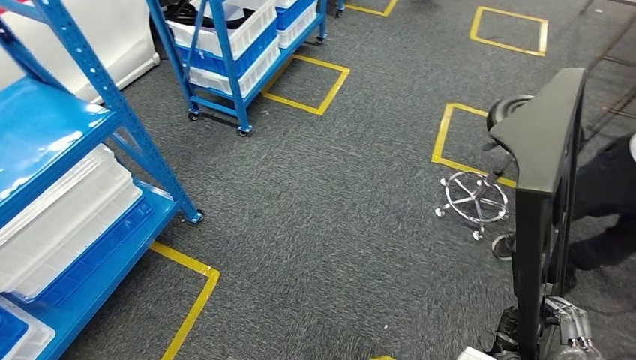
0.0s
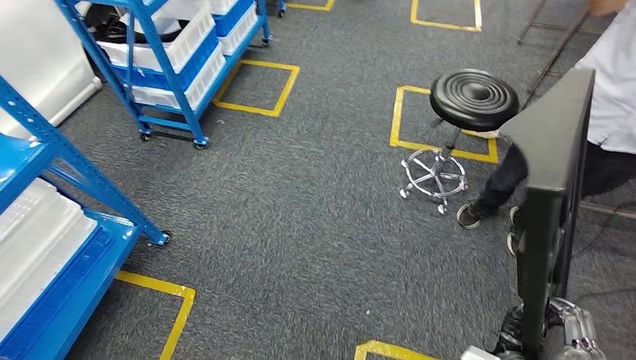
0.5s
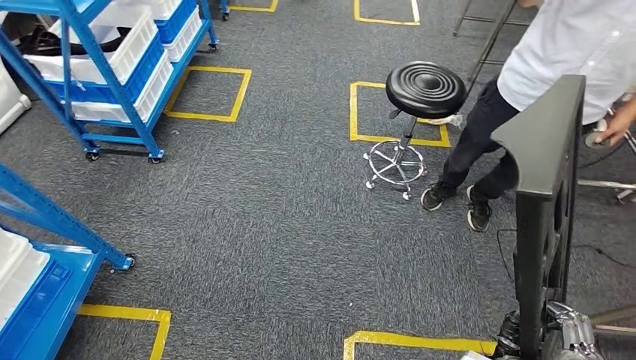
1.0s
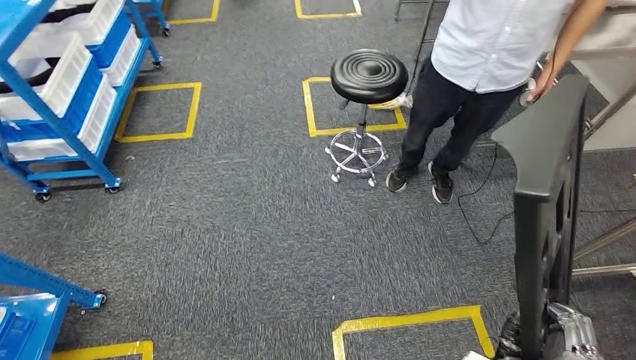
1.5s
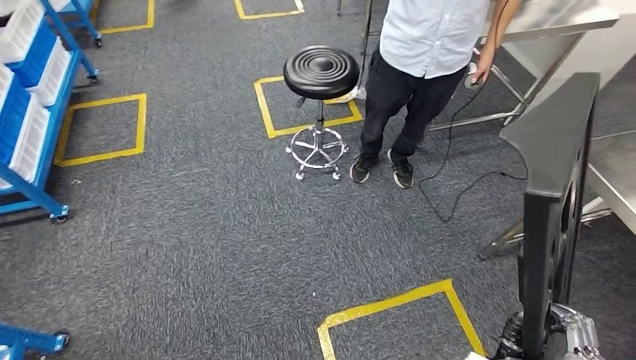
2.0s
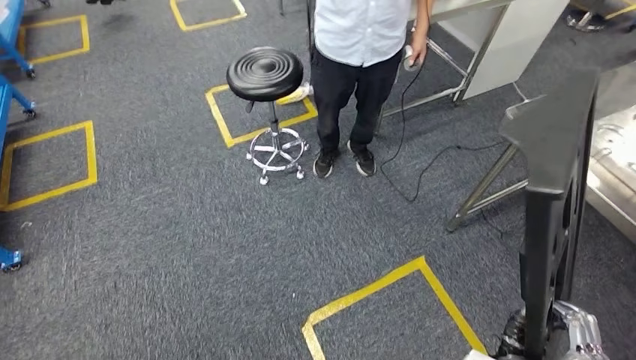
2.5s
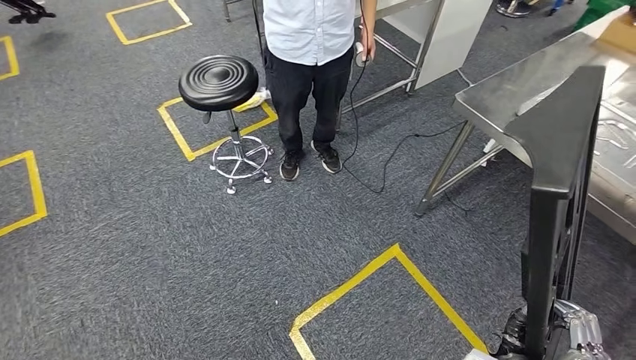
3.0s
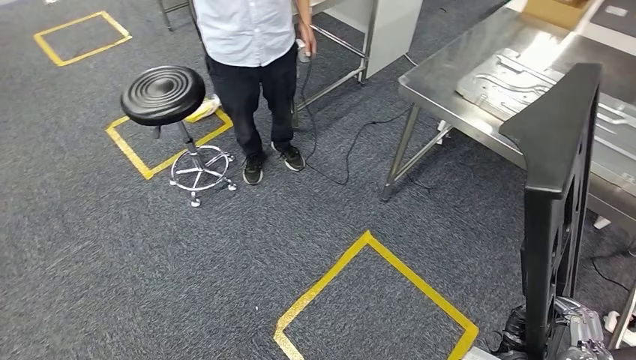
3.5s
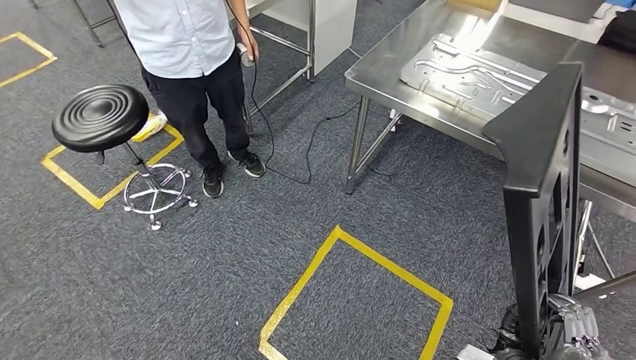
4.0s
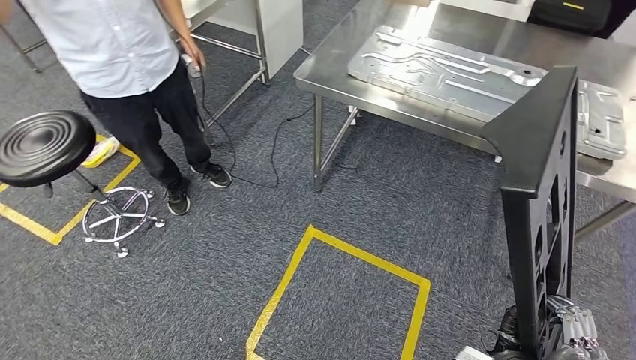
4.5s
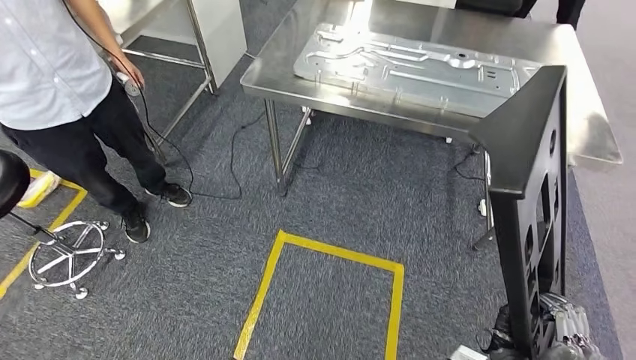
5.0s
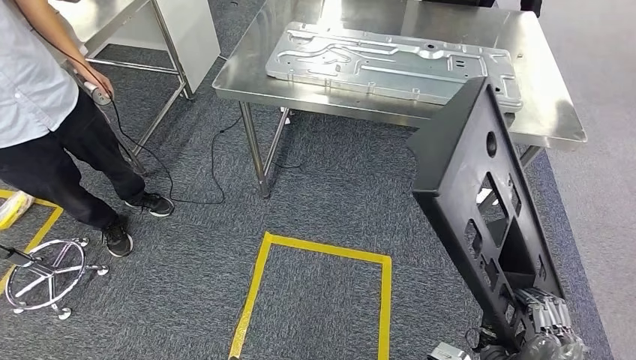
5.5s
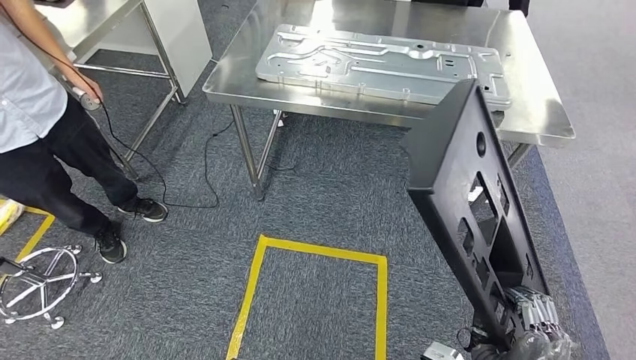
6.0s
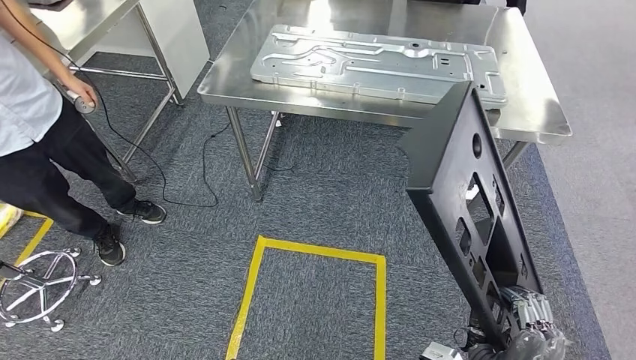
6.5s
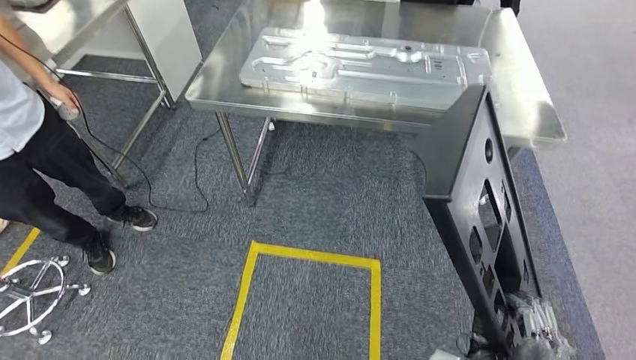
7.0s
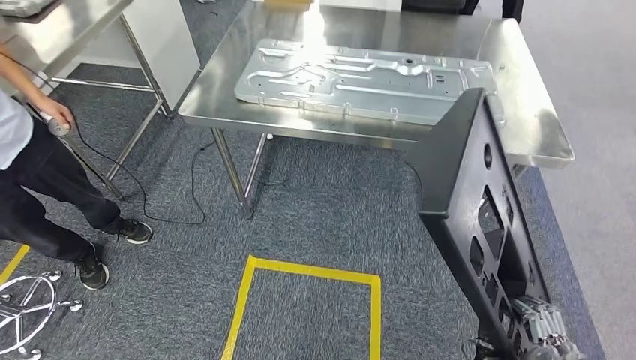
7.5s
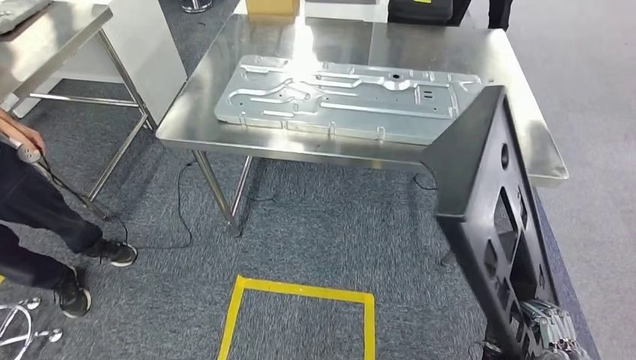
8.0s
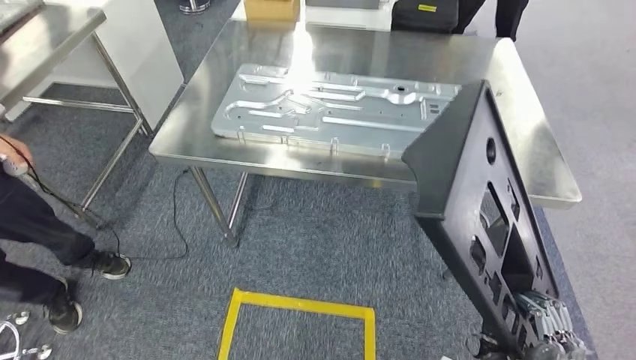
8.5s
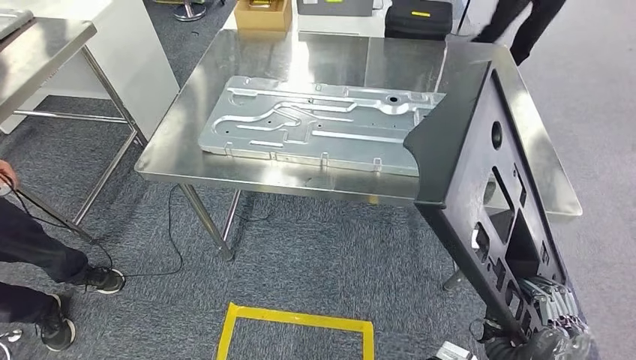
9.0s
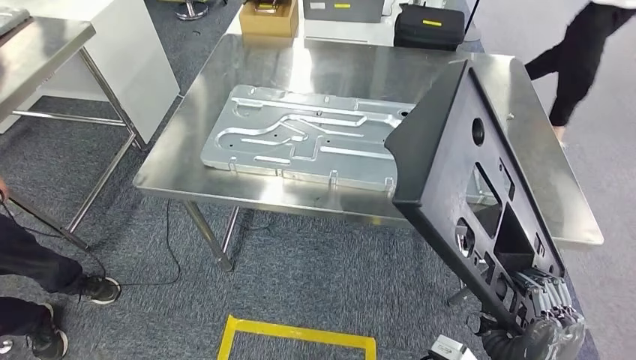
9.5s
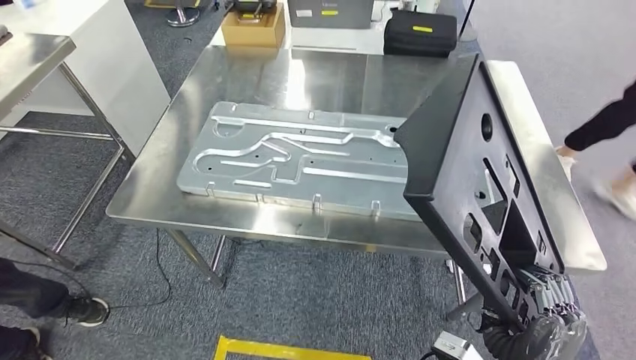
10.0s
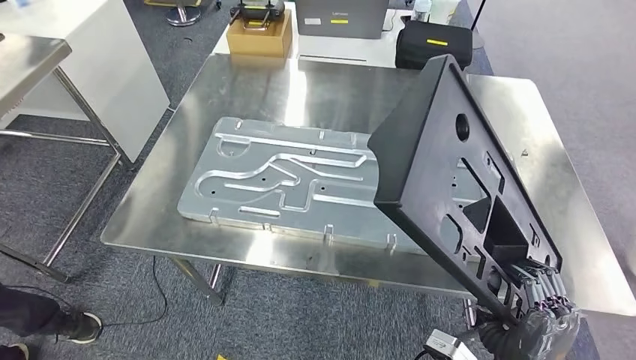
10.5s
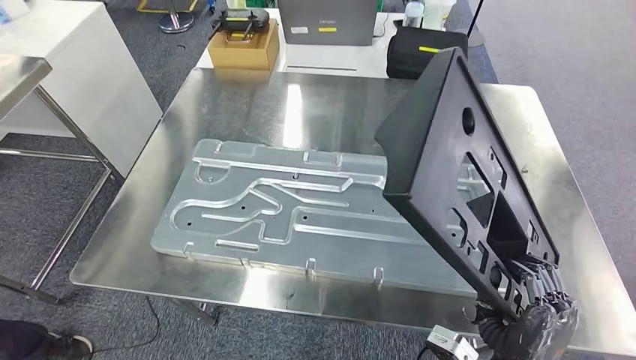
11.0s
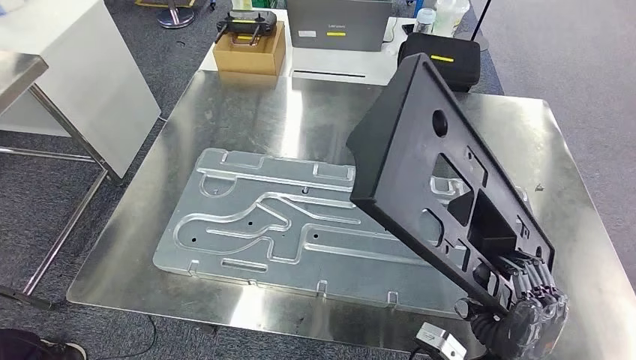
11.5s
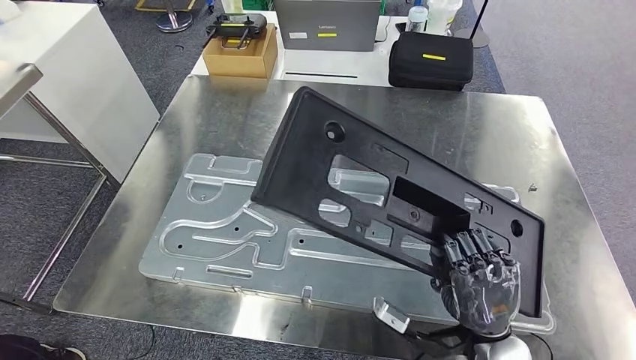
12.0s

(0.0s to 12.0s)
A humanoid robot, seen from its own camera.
Step, 0.0s - 9.5s: Move the large material to the workbench.

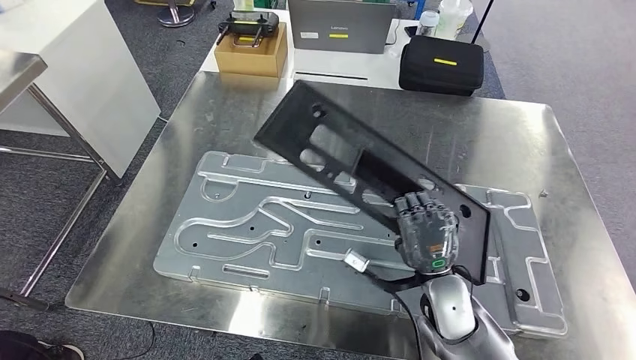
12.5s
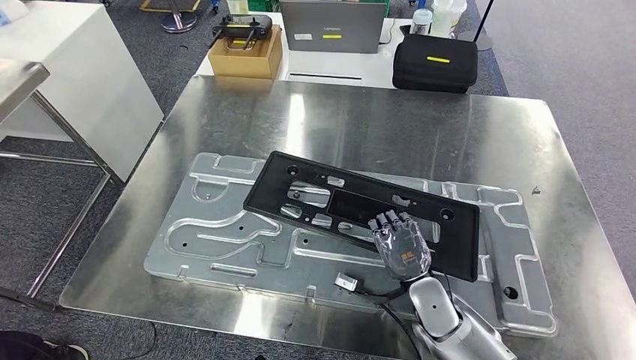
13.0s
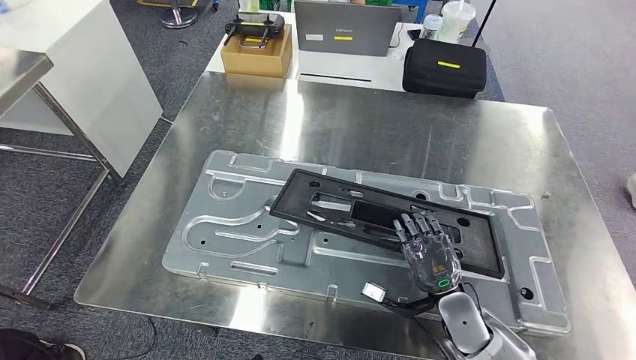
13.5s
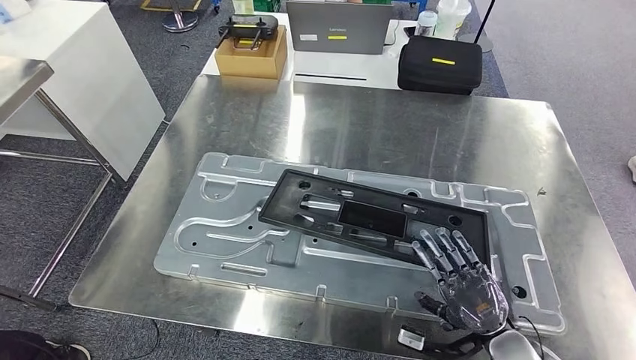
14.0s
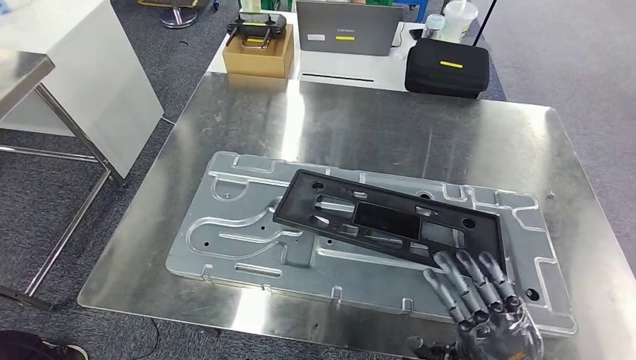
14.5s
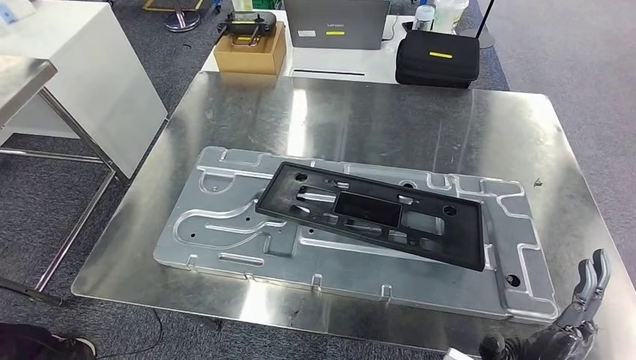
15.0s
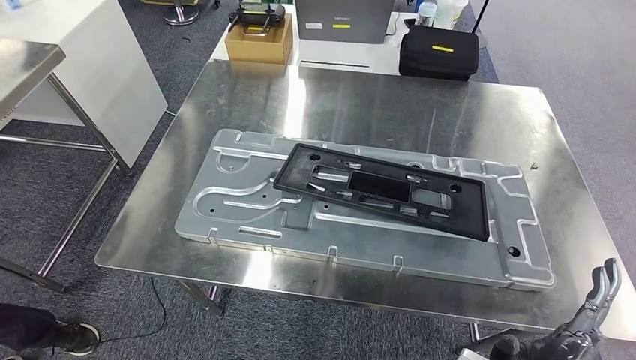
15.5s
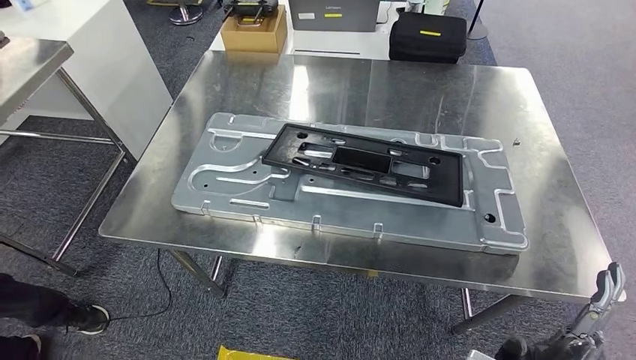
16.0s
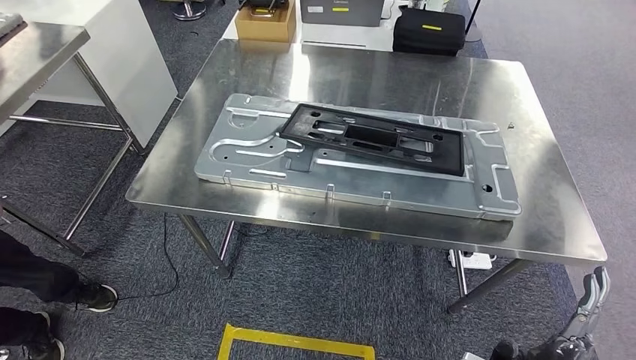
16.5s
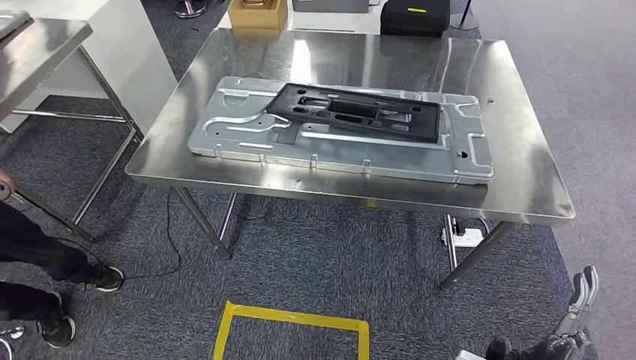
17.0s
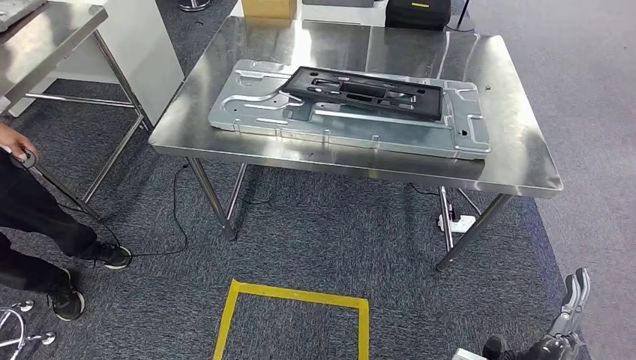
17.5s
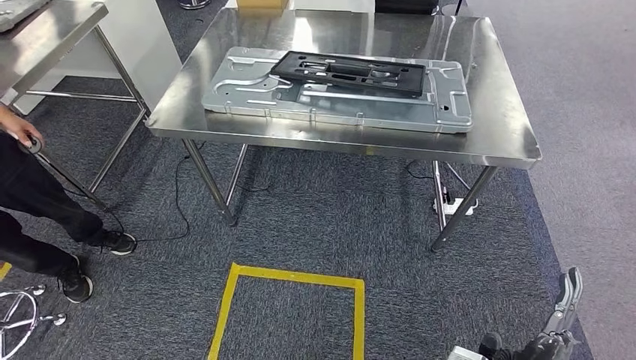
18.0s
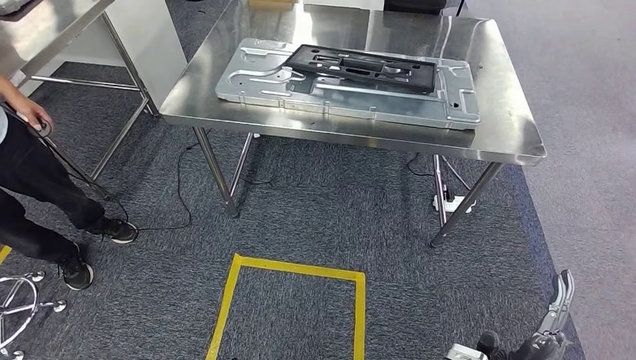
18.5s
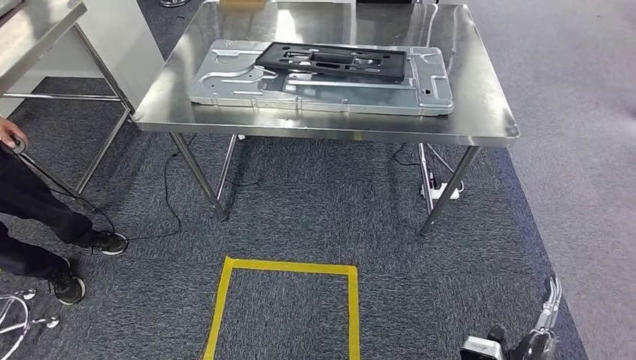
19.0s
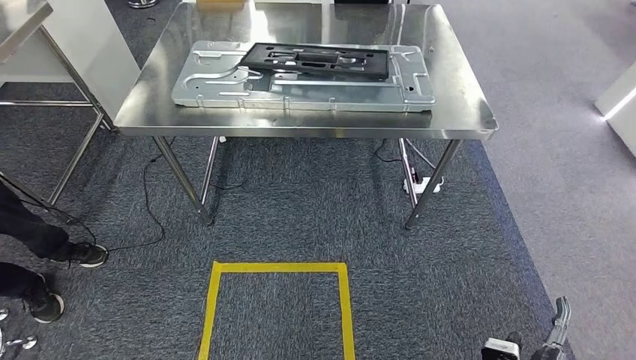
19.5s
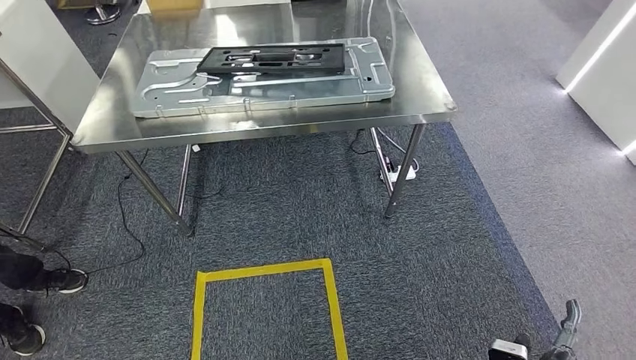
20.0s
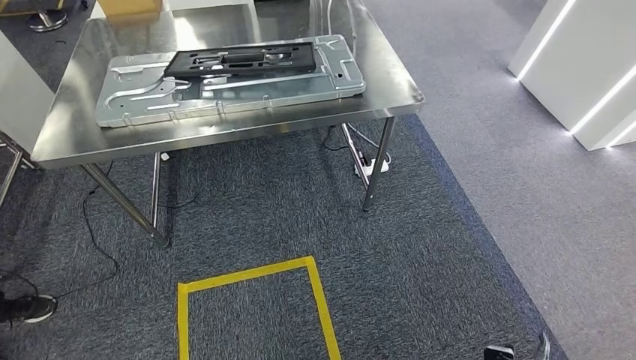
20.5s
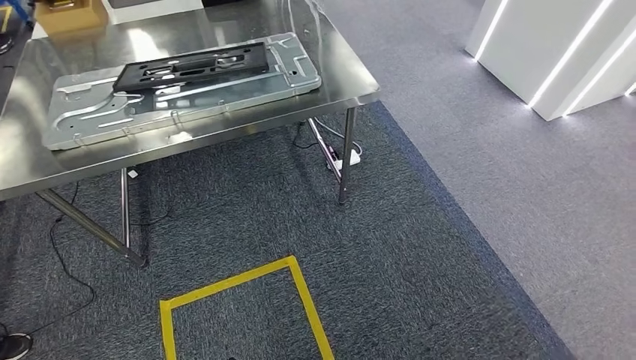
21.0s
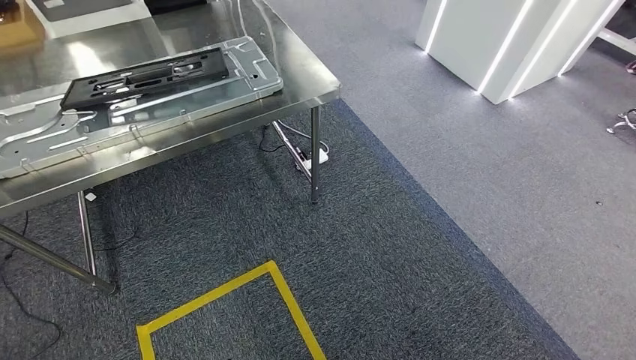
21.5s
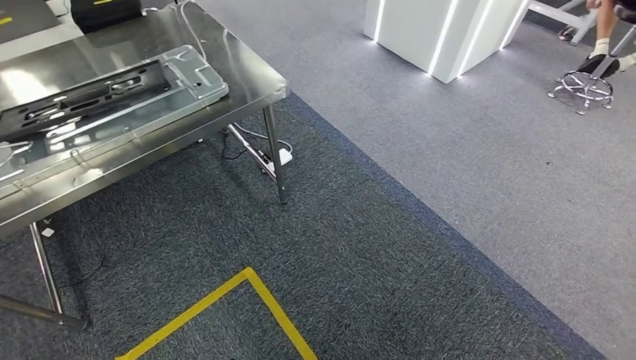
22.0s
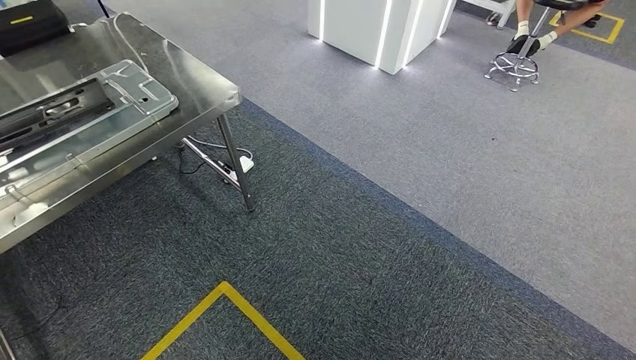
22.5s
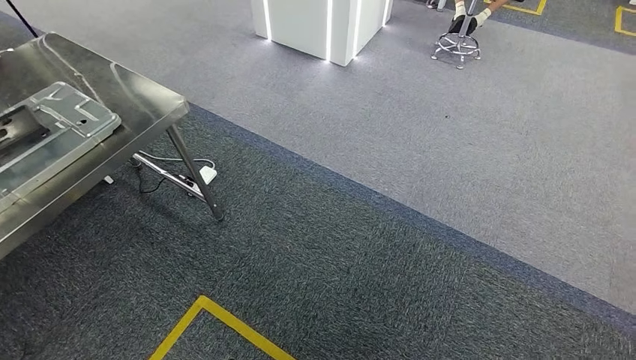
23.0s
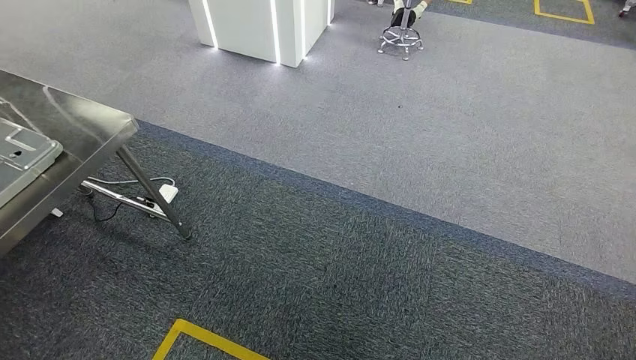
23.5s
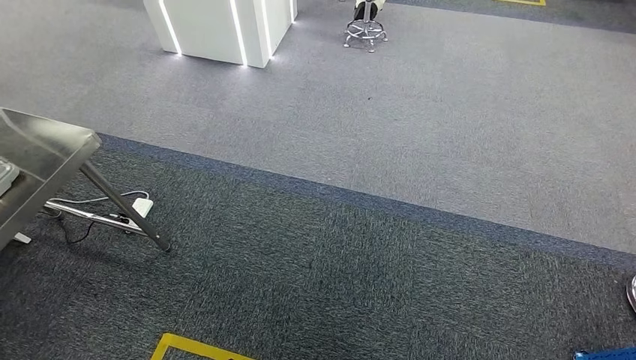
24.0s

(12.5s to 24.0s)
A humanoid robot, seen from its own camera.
Step, 12.5s - 15.5s: Insert the large material into the corresponding slot on the workbench.
